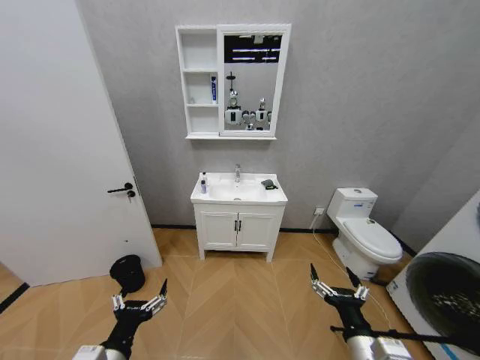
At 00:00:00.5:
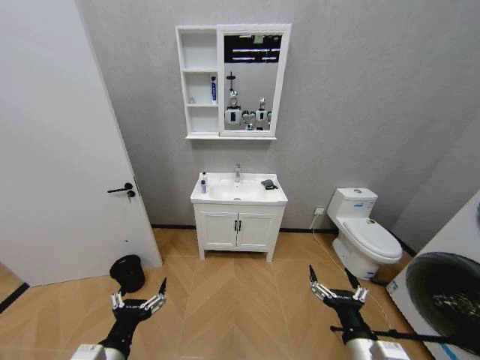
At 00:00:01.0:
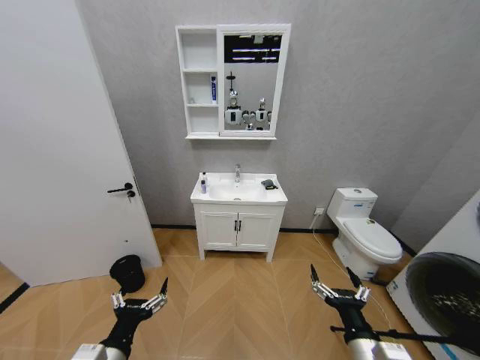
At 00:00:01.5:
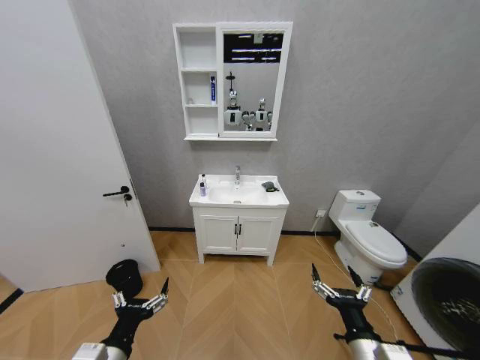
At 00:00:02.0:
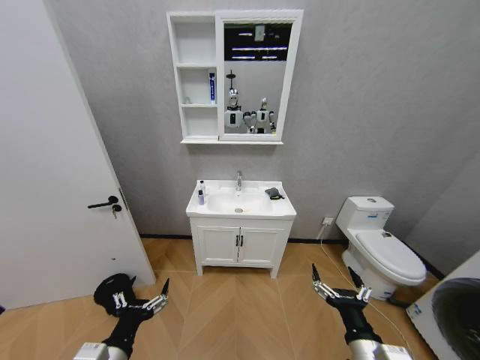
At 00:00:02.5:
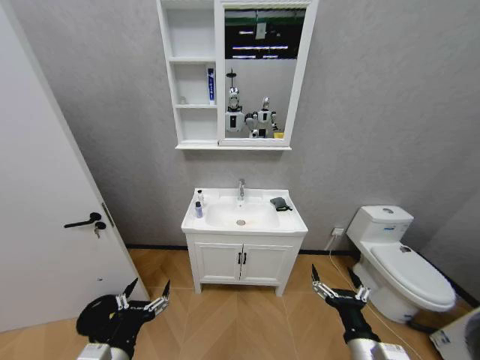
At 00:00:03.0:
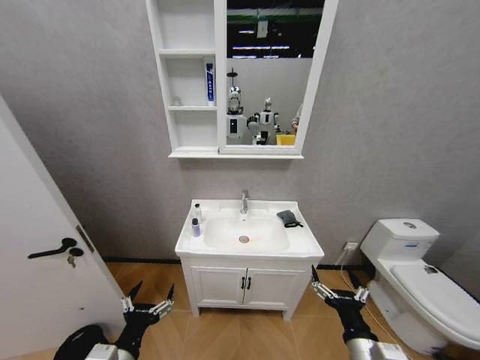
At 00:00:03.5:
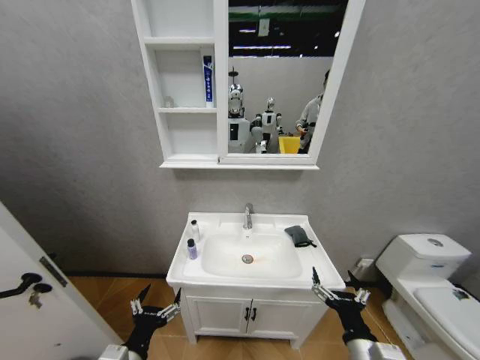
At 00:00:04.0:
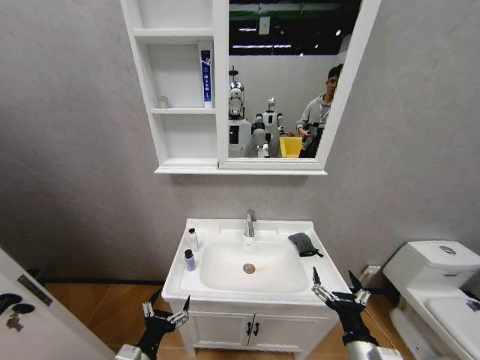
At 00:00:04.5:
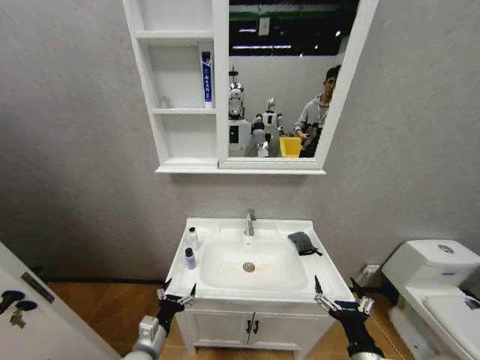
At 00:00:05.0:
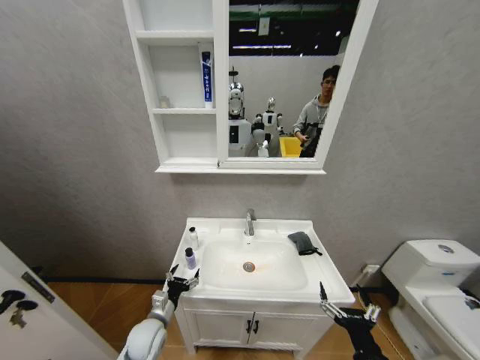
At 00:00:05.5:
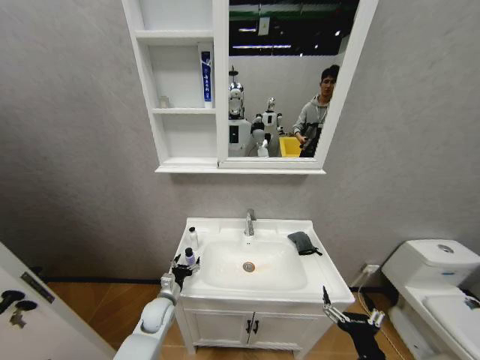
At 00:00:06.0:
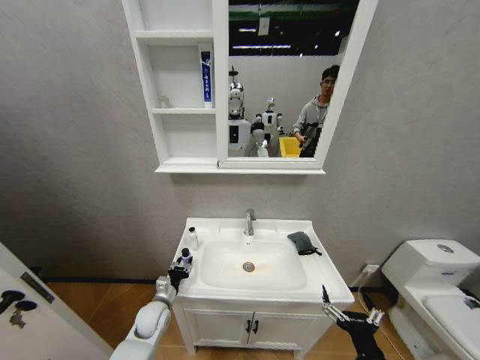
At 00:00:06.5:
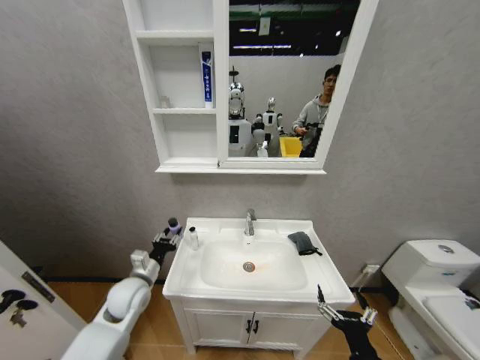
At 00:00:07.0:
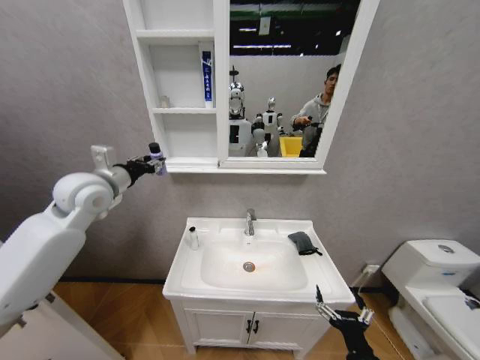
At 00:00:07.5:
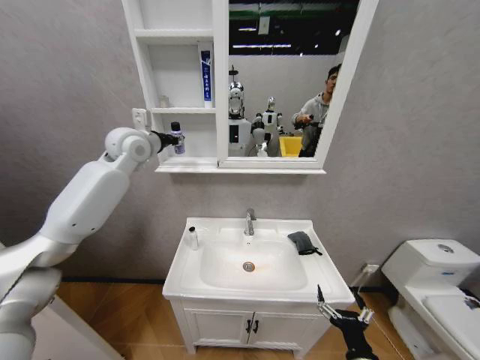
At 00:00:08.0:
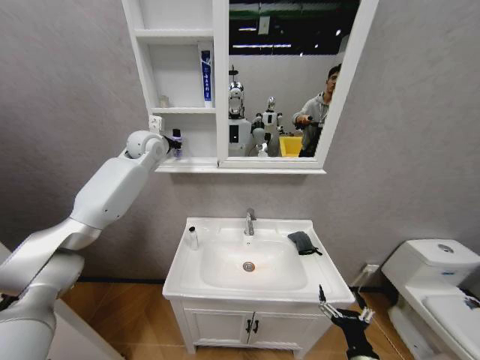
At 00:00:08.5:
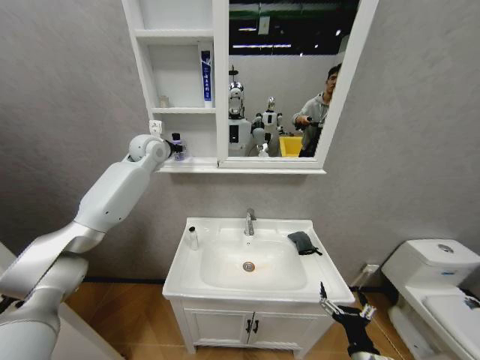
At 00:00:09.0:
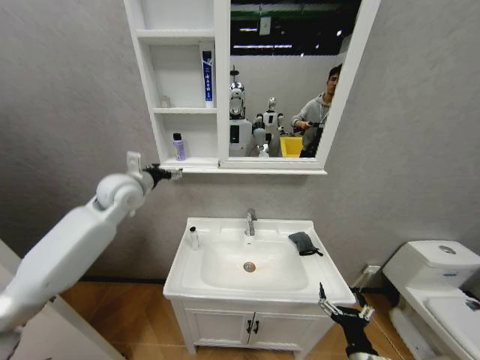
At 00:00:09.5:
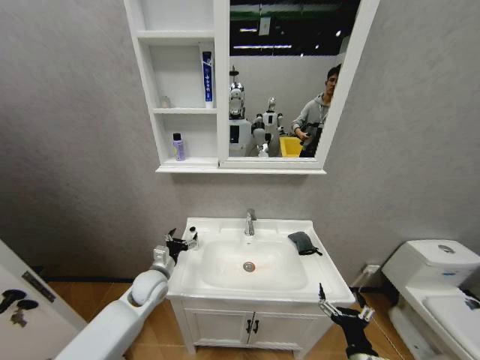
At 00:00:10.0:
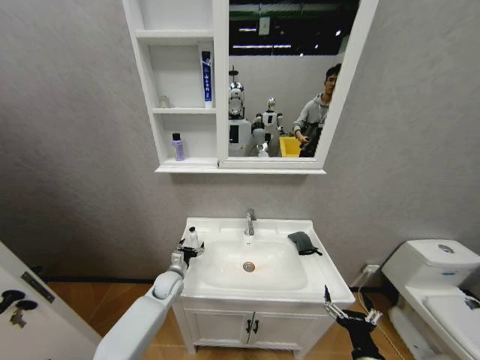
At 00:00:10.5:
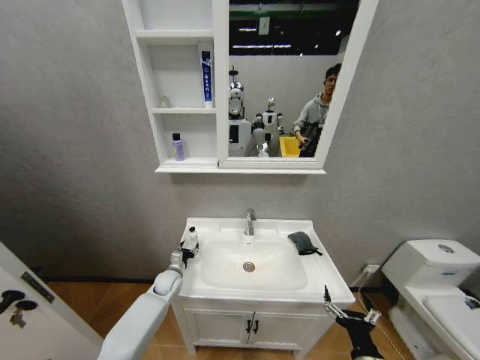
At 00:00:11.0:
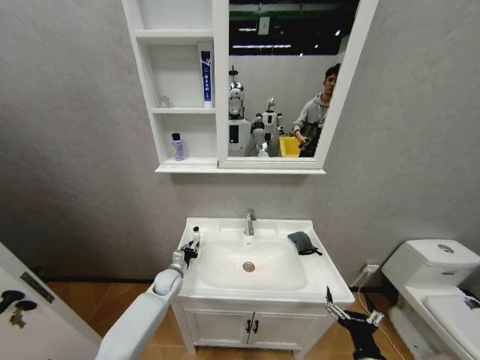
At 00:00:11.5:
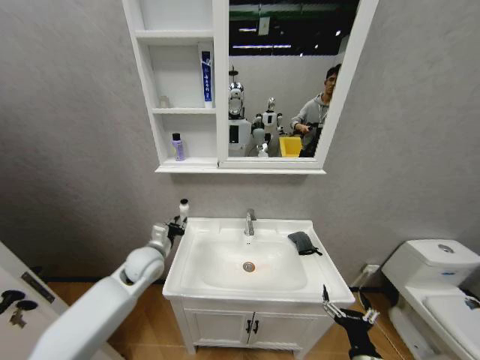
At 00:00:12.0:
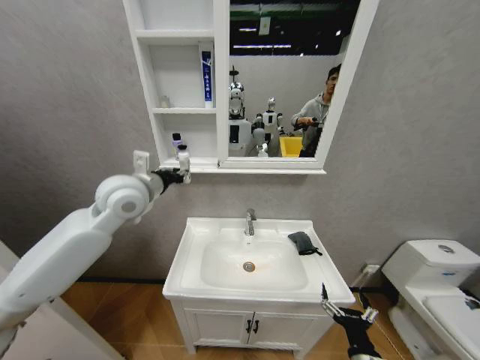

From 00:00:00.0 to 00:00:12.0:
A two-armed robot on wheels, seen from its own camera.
Task of the whole recording: Move facial cleanser and shampoo from washbasin to cabinet, then wipe washbasin with towel.
From 00:00:02.0 to 00:00:04.0: The left gripper moves downward, roughly 5 cm.
From 00:00:04.0 to 00:00:06.0: The left gripper heads forward and downward, covering roughly 25 cm, and closes up.
From 00:00:06.0 to 00:00:08.0: The left gripper goes roughly 50 cm upward and forward.
From 00:00:08.0 to 00:00:10.0: The left gripper travels downward and backward by about 50 cm, and opens up.
From 00:00:10.0 to 00:00:12.0: The left gripper heads upward, covering approximately 40 cm, and closes.

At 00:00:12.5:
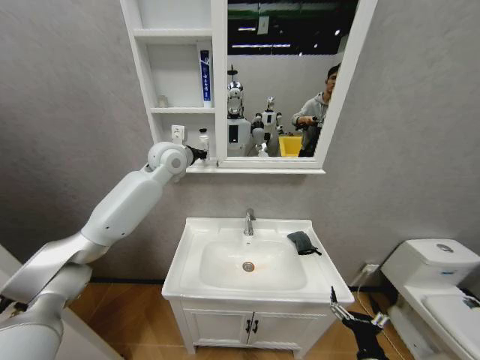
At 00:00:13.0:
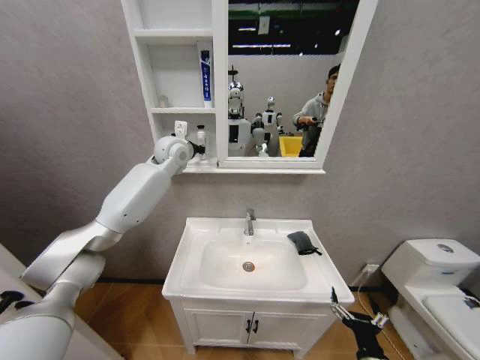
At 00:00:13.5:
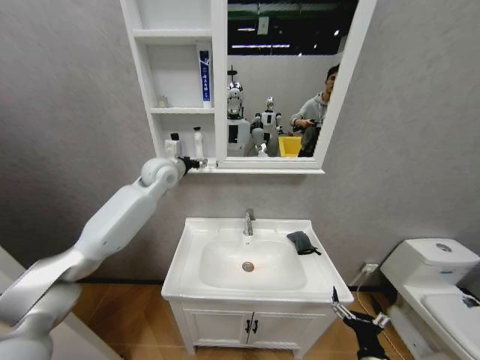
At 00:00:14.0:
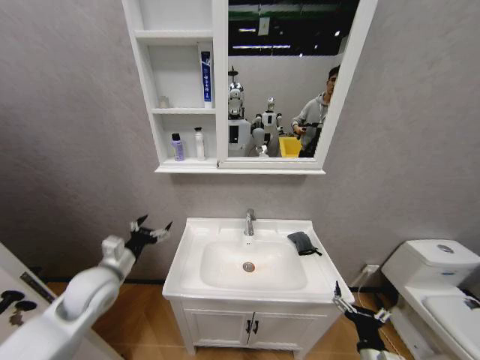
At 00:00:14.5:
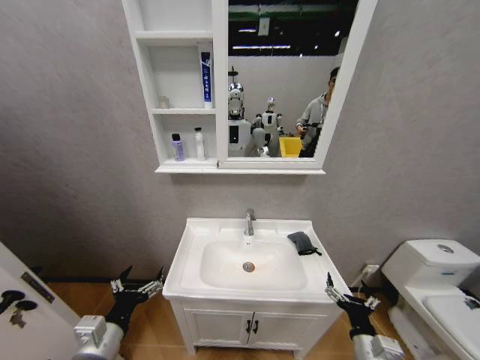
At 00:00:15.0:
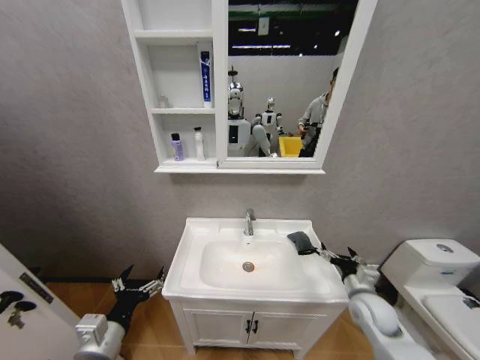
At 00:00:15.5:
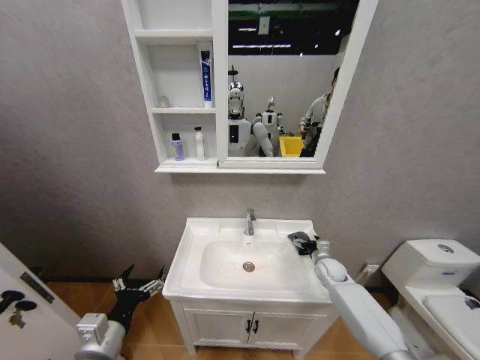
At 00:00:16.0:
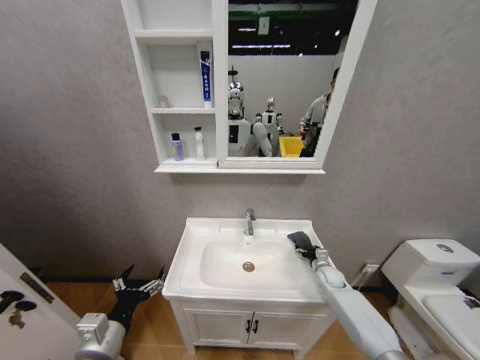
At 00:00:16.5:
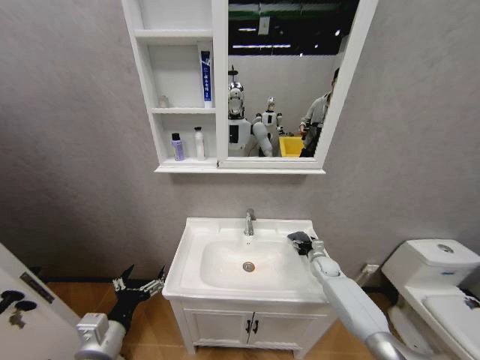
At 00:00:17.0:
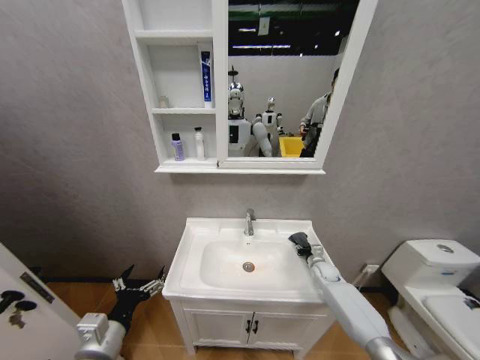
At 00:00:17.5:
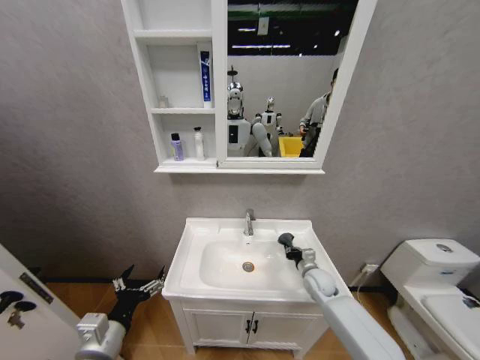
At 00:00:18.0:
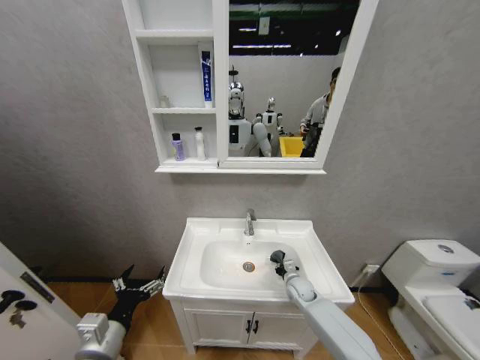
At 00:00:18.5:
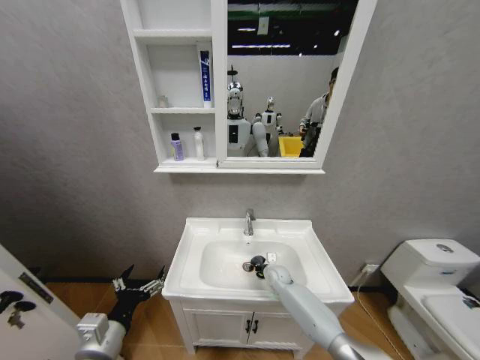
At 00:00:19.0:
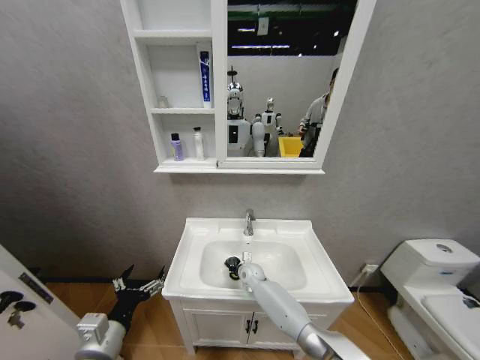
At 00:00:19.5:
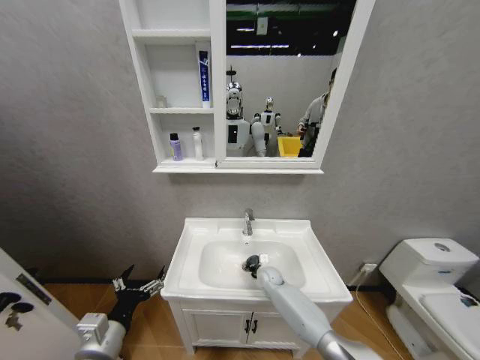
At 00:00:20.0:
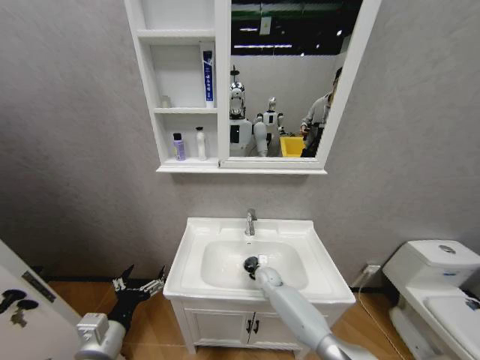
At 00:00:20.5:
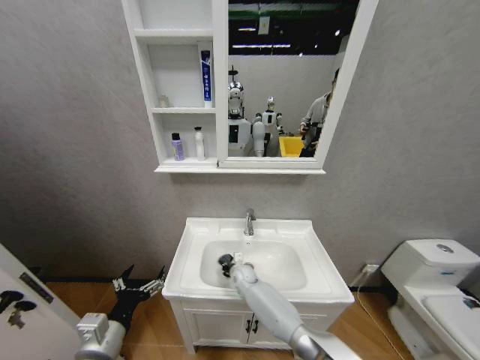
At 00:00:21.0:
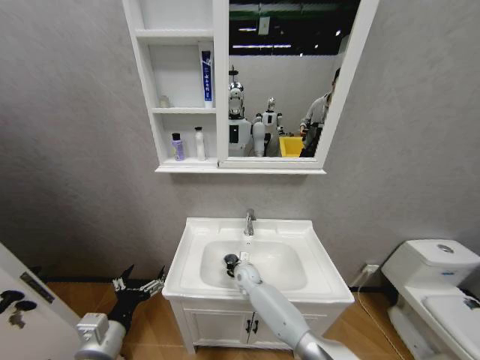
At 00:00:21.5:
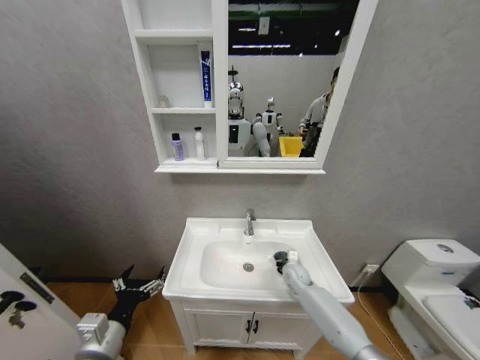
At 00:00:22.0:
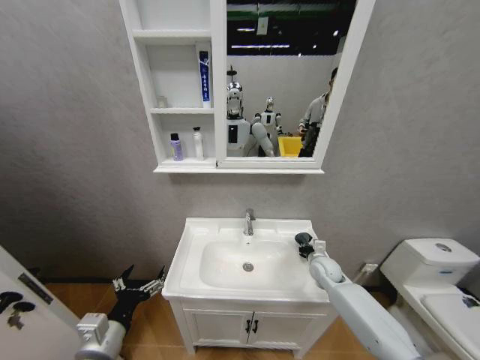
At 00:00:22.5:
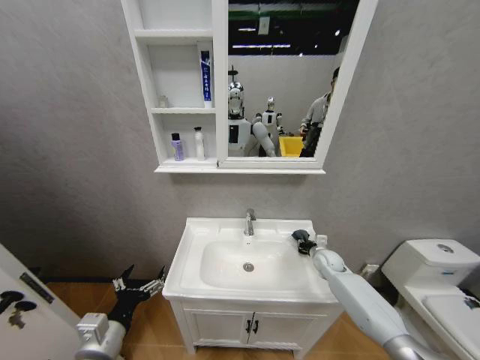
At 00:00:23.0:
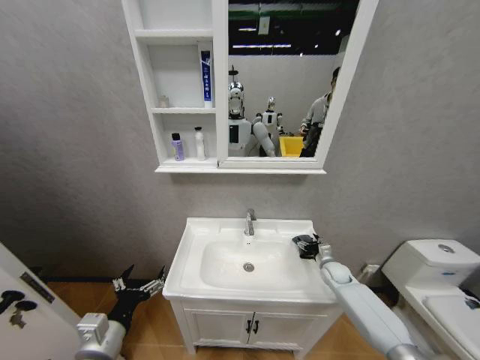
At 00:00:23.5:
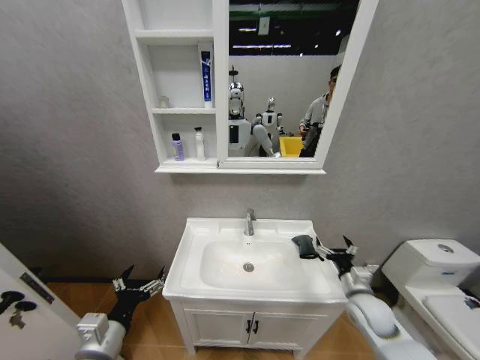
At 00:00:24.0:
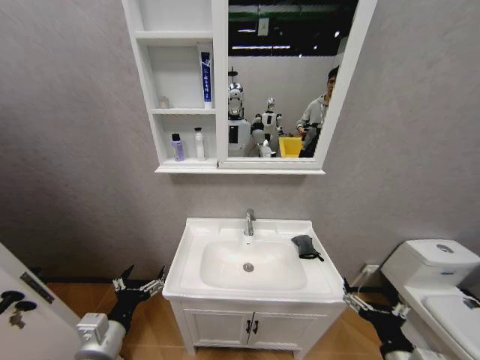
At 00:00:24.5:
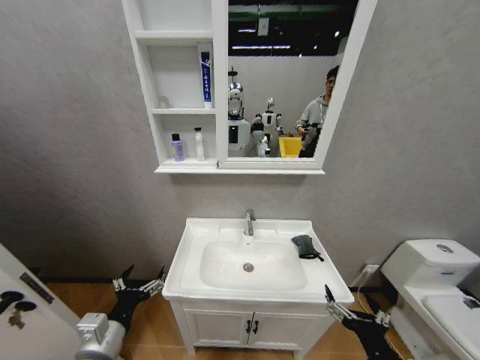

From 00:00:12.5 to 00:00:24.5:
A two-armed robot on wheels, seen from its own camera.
Task of the whole recording: Move facial cleanser and shampoo from washbasin to cabinet, then wipe washbasin with towel.
From 00:00:12.5 to 00:00:14.5: The left gripper is displaced backward and downward by approximately 50 cm, and opens.
From 00:00:14.5 to 00:00:16.5: The right gripper travels forward by roughly 35 cm.
From 00:00:16.5 to 00:00:18.5: The right gripper goes about 20 cm to the left, and closes up.
From 00:00:18.5 to 00:00:20.5: The right gripper moves left and right over some 15 cm, changing direction 2 times.
From 00:00:20.5 to 00:00:22.5: The right gripper moves to the right, roughly 30 cm.
From 00:00:22.5 to 00:00:24.5: The right gripper goes roughly 40 cm backward, and opens up.
